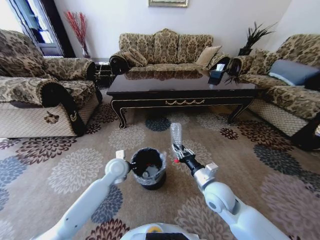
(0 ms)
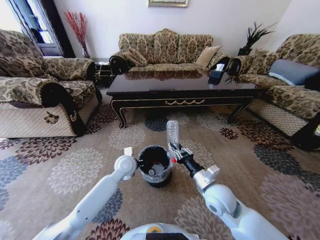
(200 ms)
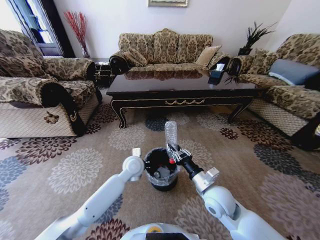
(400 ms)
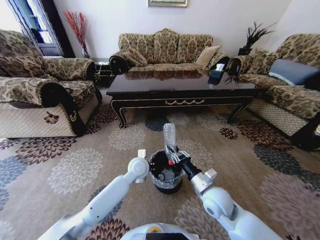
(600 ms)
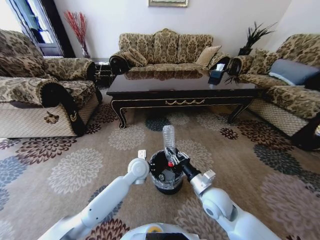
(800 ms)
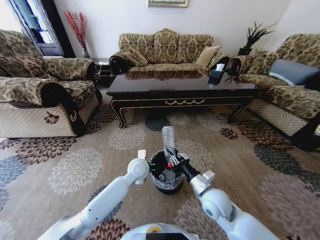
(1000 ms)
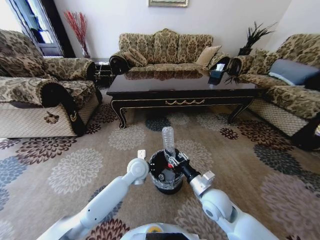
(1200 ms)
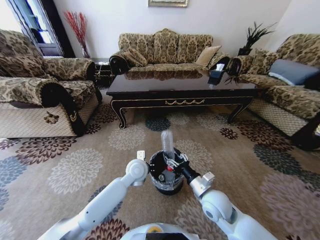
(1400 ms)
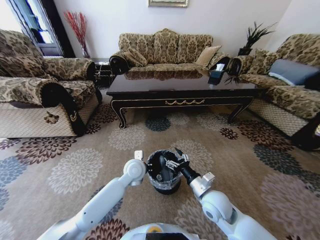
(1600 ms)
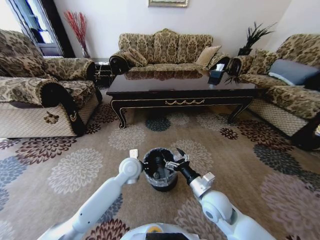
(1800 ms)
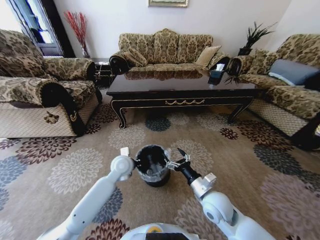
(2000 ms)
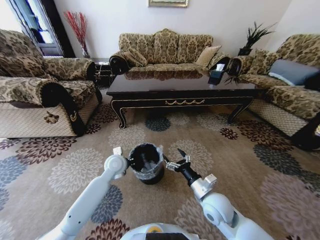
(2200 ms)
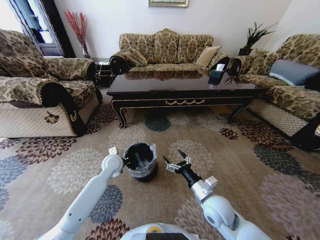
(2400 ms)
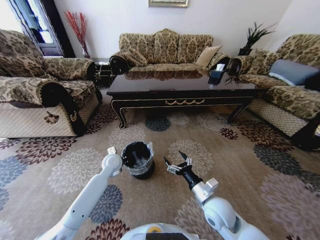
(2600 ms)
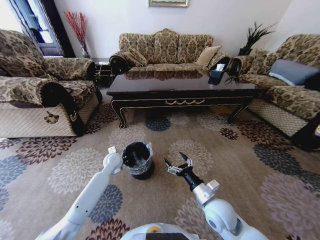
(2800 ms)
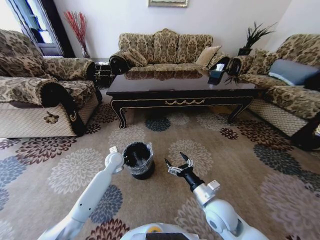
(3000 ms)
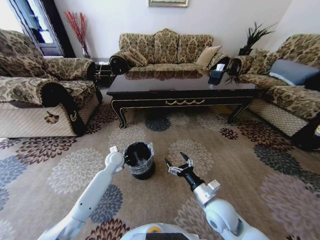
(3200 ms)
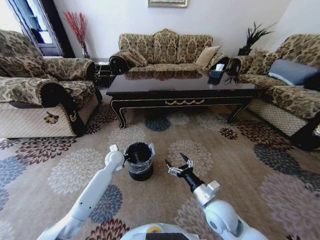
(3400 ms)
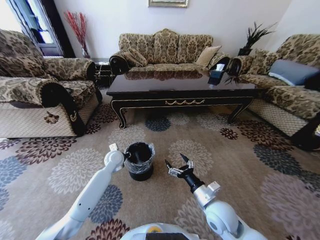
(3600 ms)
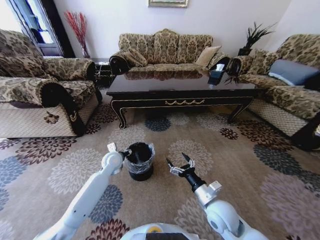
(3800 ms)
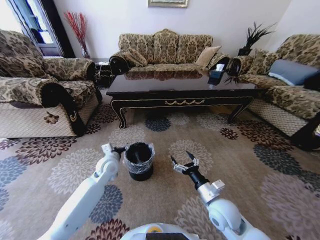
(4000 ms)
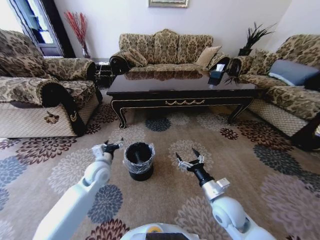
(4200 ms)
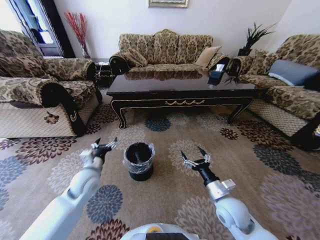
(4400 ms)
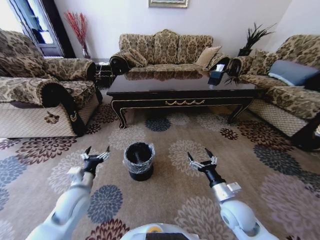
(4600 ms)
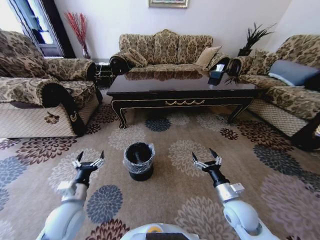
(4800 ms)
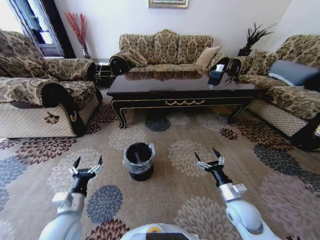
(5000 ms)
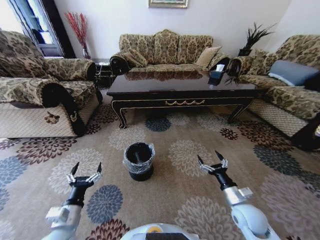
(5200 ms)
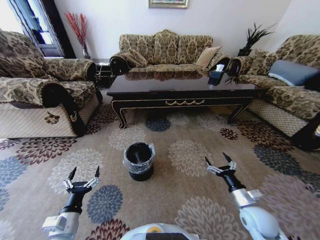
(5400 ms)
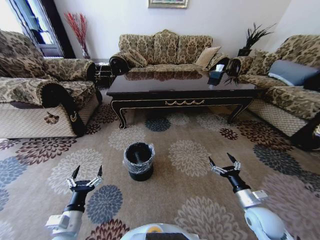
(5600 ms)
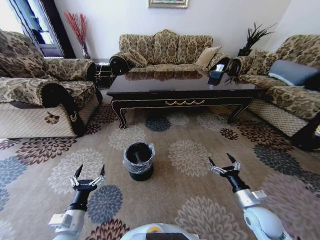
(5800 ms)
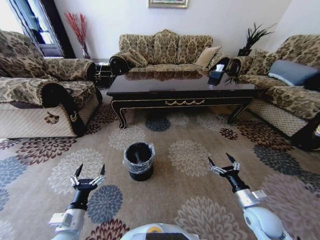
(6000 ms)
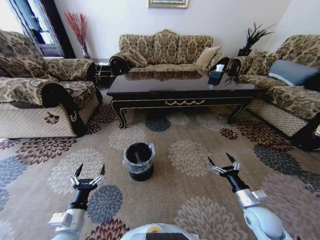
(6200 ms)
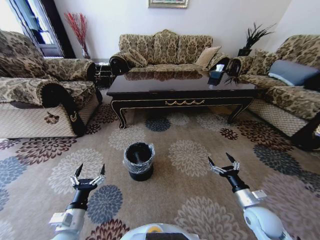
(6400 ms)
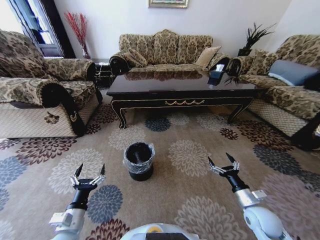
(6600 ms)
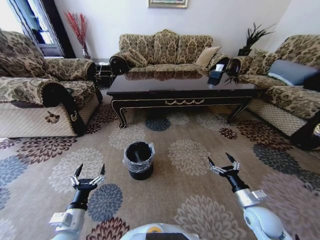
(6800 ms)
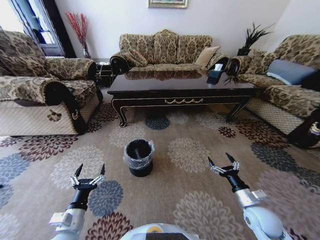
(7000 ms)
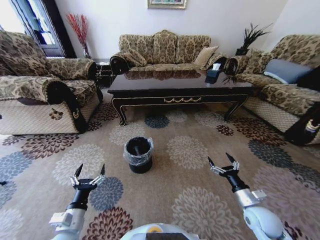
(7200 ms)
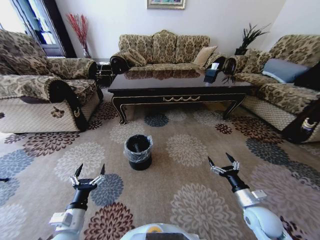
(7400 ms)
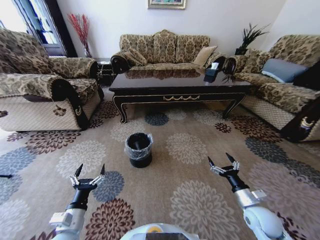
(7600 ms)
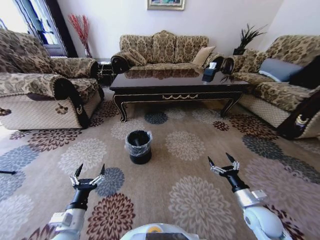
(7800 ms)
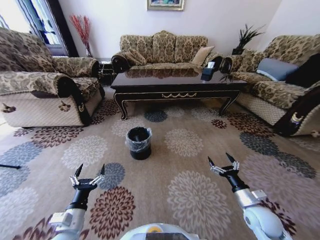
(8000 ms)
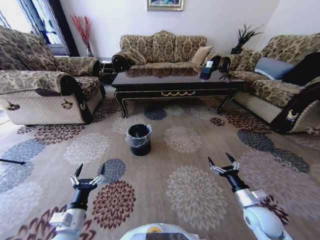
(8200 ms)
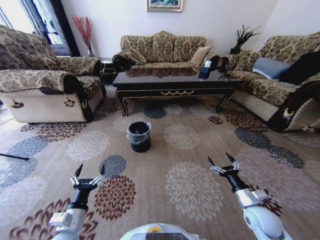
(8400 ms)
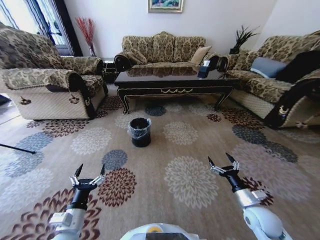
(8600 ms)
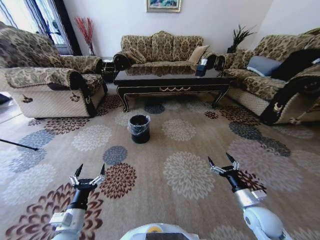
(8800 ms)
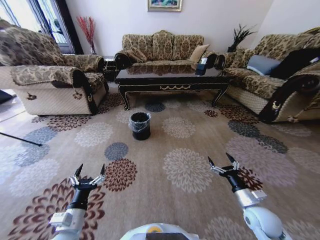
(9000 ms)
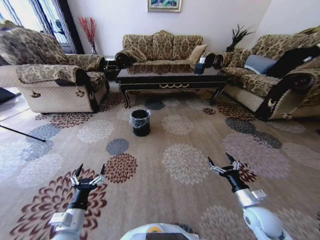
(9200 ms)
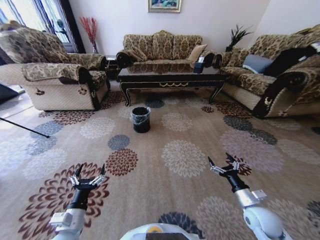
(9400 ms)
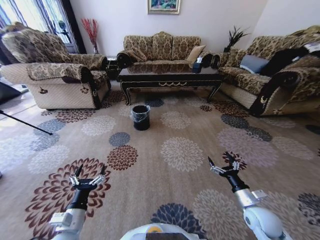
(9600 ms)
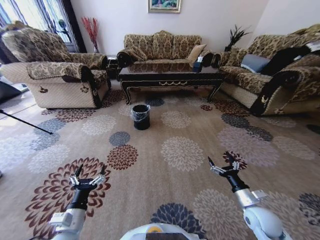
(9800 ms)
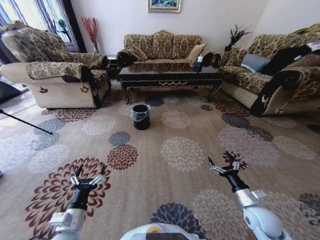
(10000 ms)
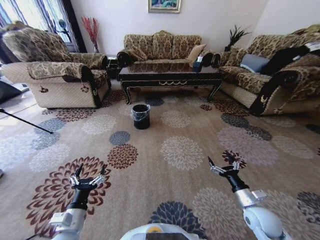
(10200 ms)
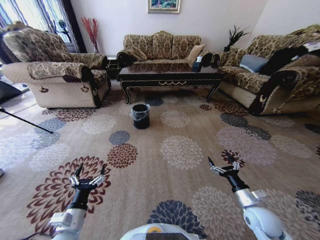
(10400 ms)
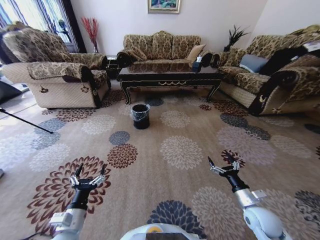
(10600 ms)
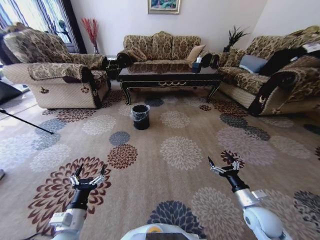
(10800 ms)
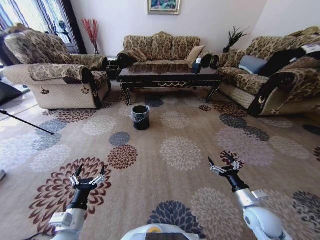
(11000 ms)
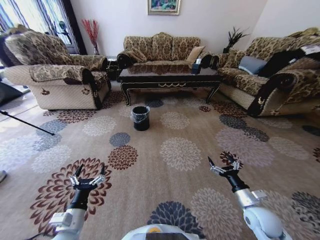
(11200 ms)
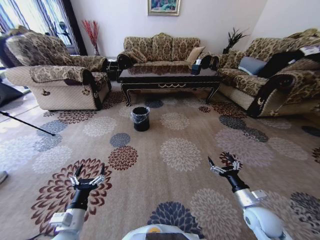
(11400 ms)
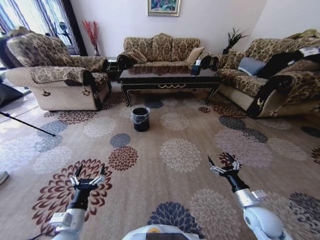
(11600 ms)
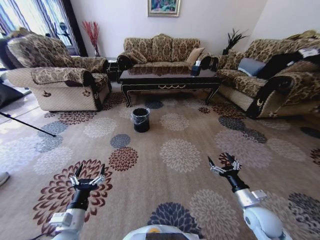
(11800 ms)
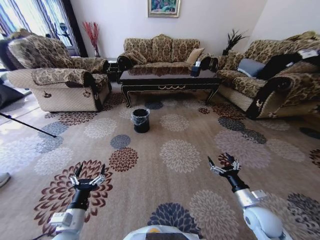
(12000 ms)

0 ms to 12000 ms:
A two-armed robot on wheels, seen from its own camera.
Task of the whole recording: Move to the front of the table and pick up the trash from the floor, then place it into the trash bin.
0 ms to 1600 ms: The right gripper opens up. Meanwhile the left gripper heads to the right, covering approximately 10 cm.
1600 ms to 3000 ms: The left gripper travels to the left, forward and downward by approximately 15 cm.
3000 ms to 4400 ms: The left gripper travels backward, to the left and upward by approximately 15 cm, and opens up.
4400 ms to 6000 ms: The right gripper goes roughly 15 cm to the right, while the left gripper heads backward, covering roughly 20 cm.

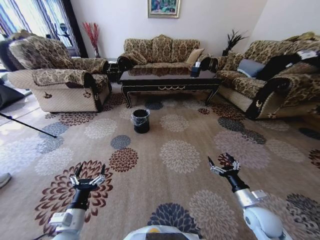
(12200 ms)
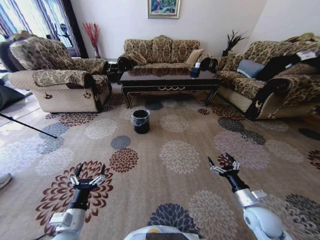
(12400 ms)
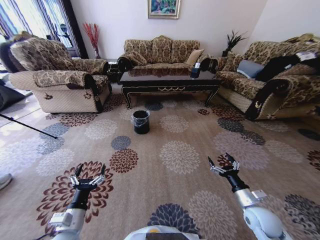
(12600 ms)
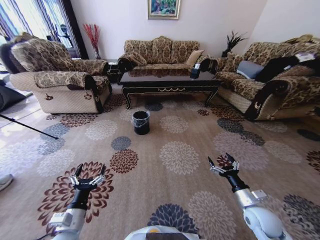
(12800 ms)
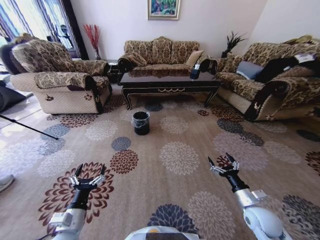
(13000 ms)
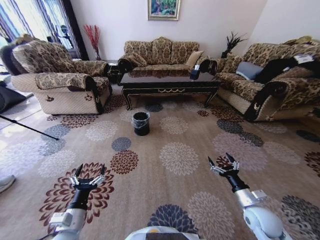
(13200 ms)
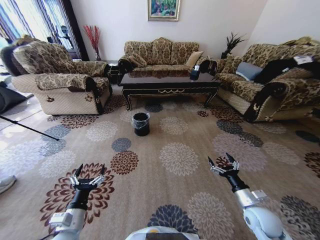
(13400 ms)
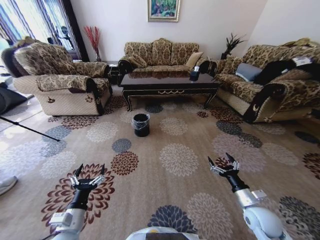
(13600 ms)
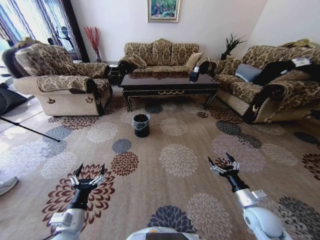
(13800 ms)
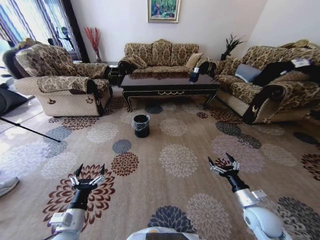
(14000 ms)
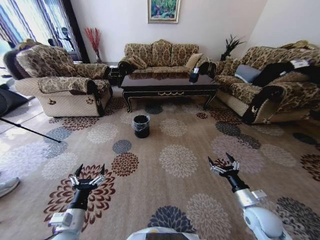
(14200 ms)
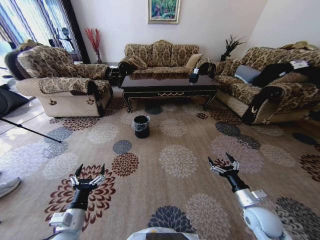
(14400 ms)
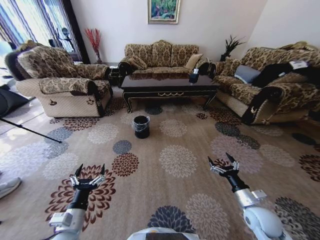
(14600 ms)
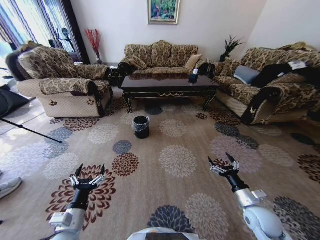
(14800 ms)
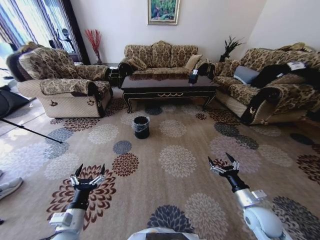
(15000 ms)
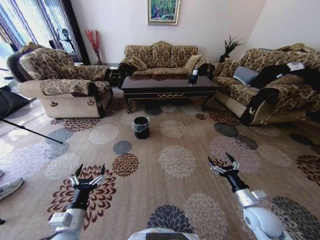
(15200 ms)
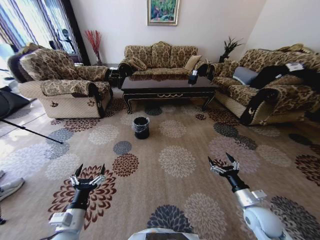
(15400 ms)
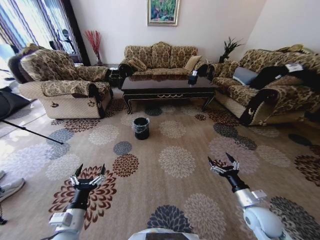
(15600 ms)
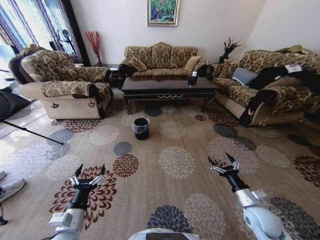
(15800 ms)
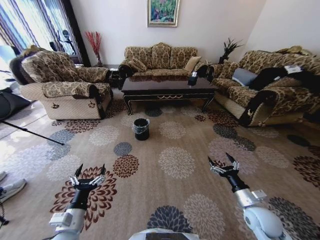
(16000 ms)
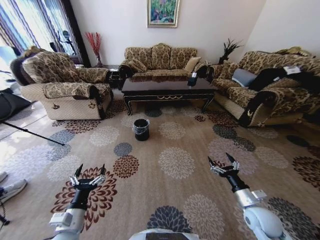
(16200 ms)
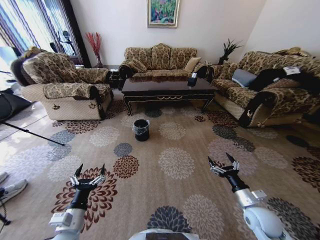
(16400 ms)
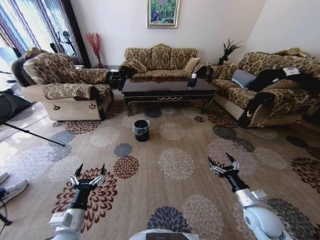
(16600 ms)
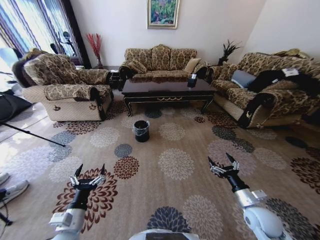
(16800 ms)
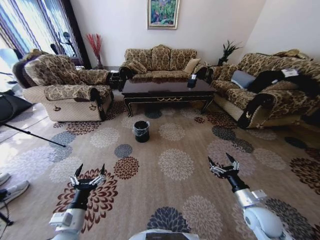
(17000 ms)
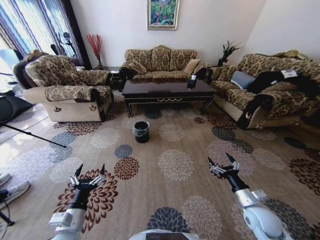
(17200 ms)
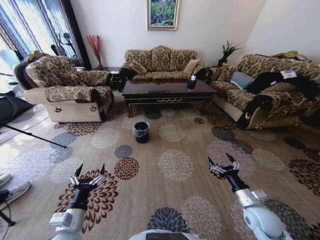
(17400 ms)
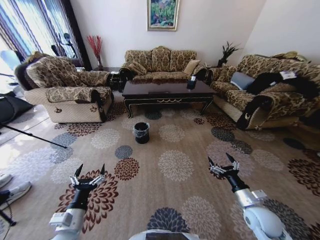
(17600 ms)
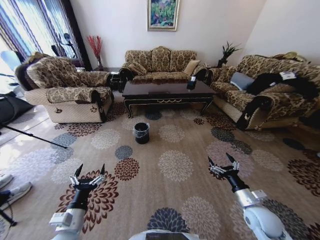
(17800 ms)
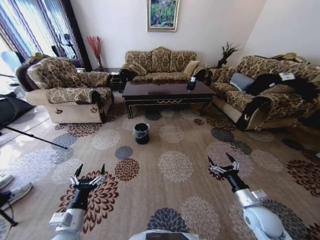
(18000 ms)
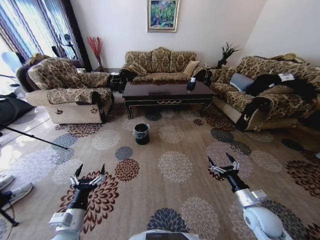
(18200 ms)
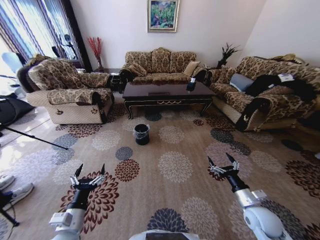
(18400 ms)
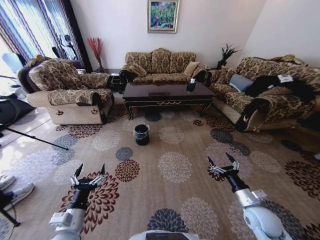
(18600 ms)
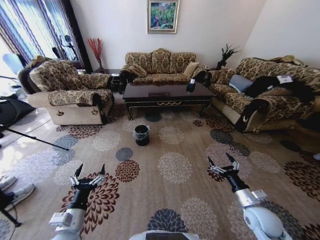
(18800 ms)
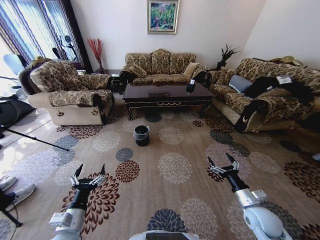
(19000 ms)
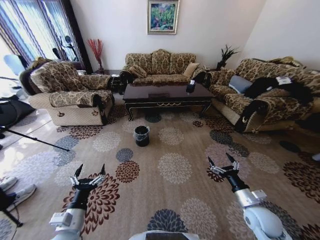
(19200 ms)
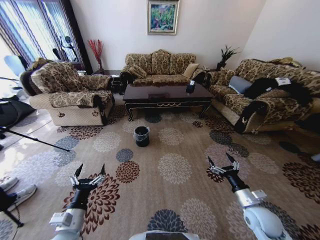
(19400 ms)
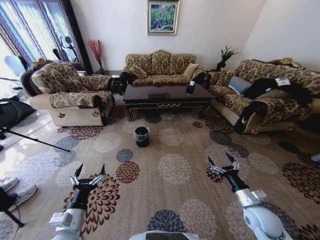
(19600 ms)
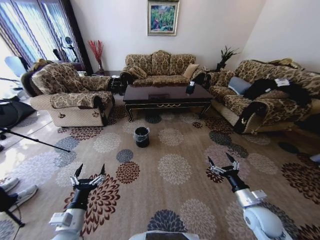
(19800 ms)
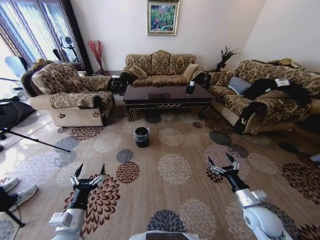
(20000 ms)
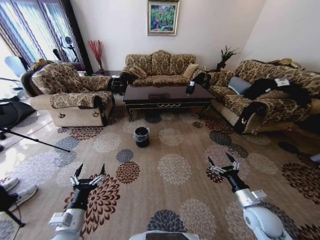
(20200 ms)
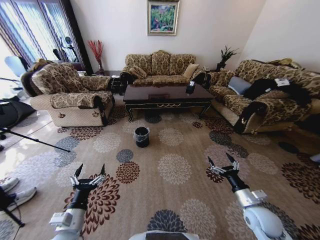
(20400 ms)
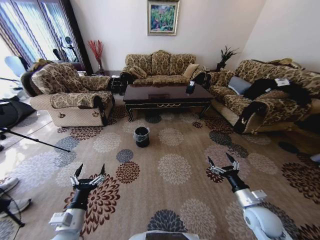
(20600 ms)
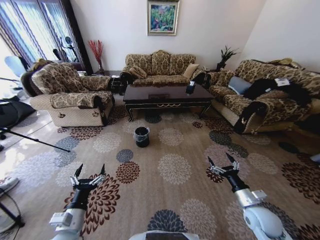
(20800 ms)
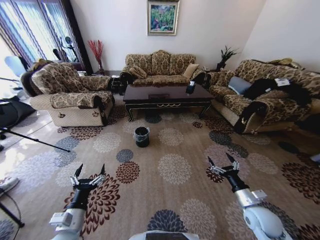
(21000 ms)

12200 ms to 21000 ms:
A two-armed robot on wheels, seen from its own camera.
Task of the whole recording: Move to the front of the table and pick up the trash from the floor, then place it into the trash bin.
19600 ms to 21000 ms: The two grippers keep their place.

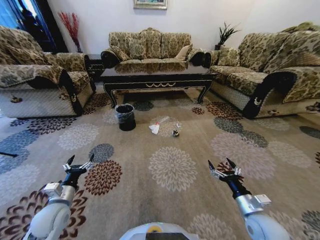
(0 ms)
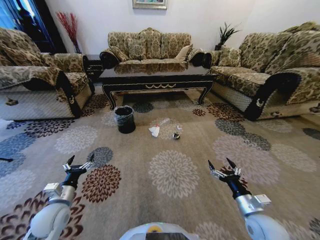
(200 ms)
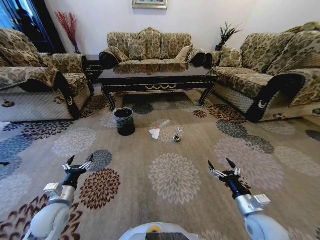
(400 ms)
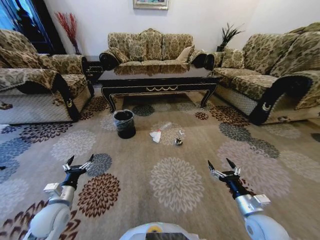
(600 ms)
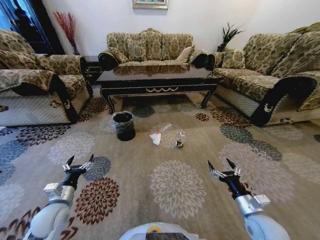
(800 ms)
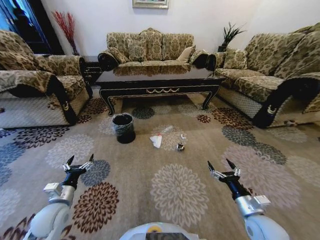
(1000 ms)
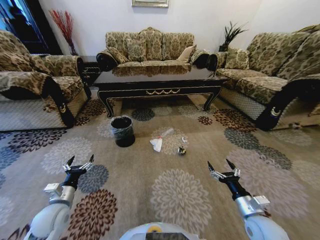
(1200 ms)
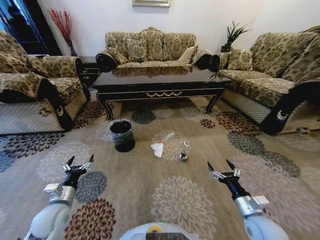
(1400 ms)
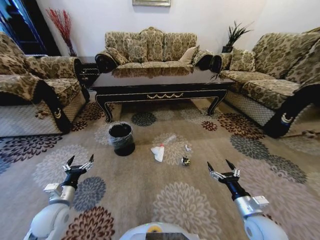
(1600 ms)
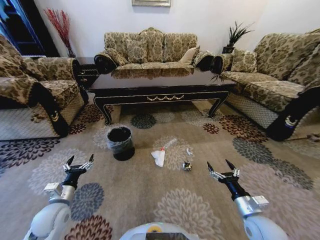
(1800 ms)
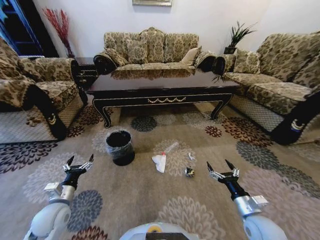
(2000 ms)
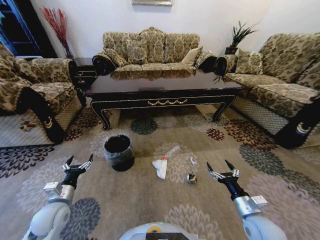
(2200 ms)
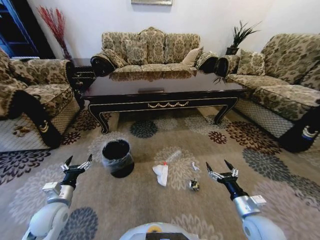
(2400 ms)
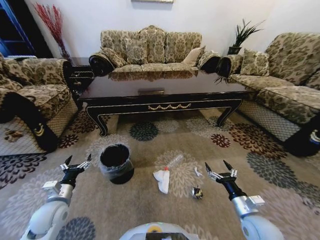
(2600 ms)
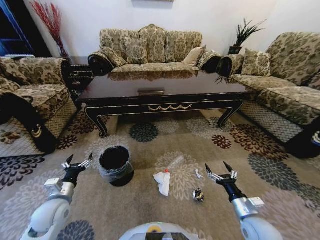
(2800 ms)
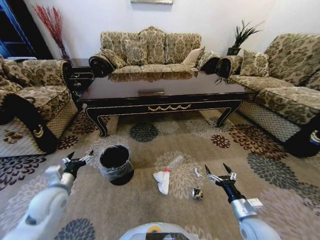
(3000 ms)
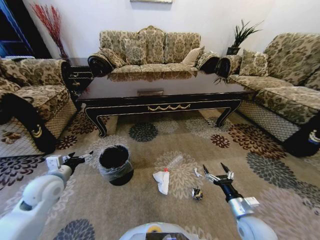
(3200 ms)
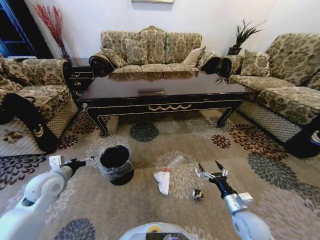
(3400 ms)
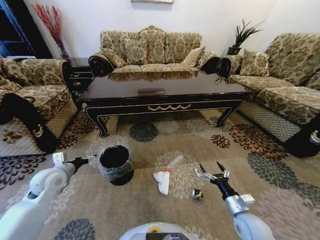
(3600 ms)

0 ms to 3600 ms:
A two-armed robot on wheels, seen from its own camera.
Task of the whole recording: Move to the front of the table and pick up the trash from the floor, then place it into the trash bin.
1800 ms to 3600 ms: The left gripper is displaced forward and upward by approximately 15 cm.
